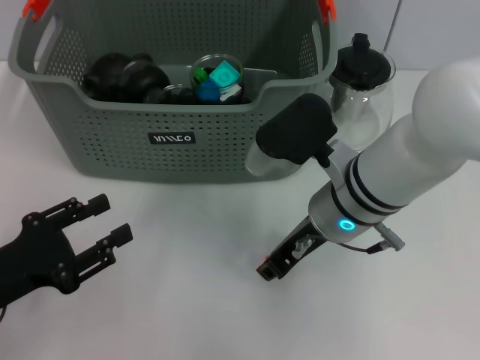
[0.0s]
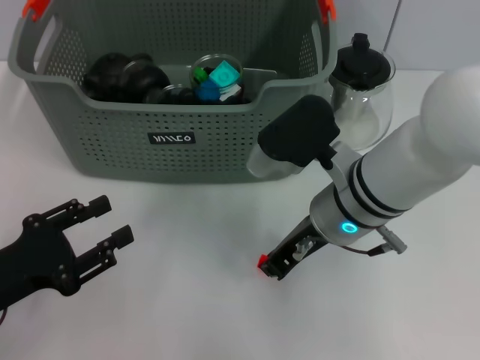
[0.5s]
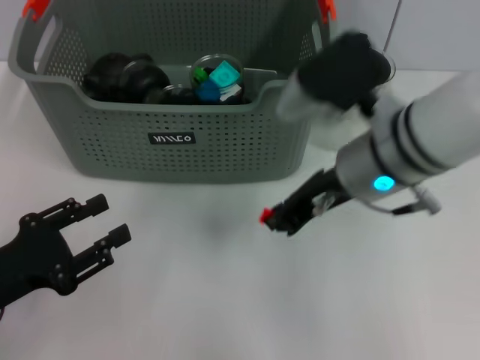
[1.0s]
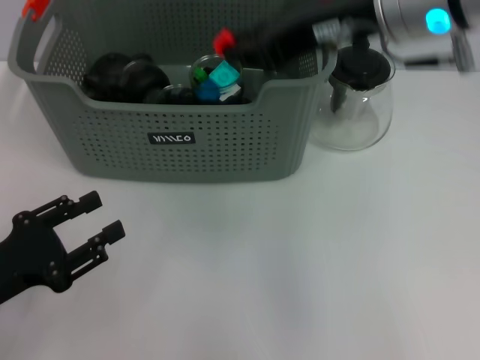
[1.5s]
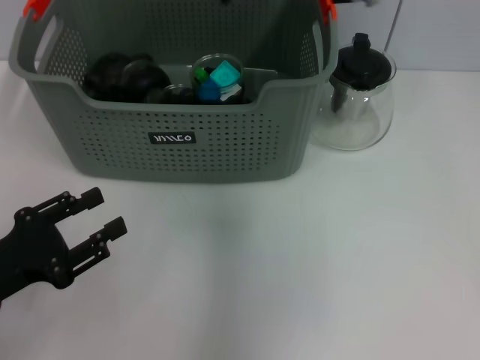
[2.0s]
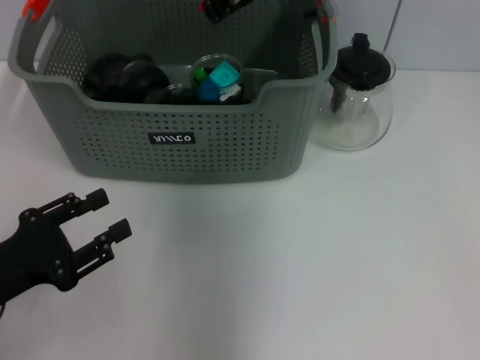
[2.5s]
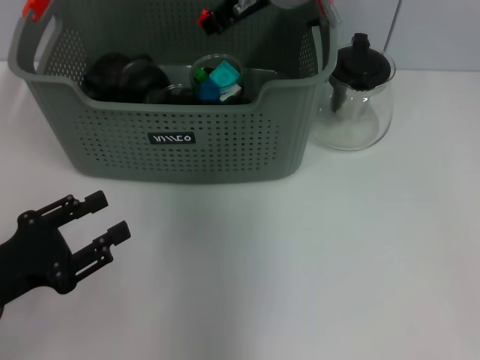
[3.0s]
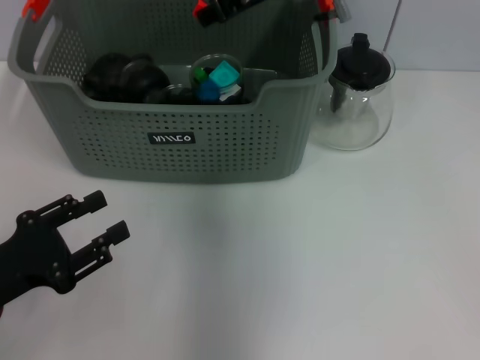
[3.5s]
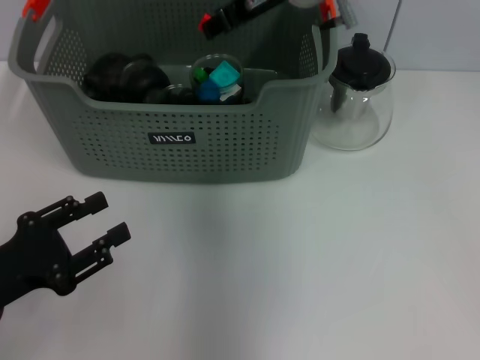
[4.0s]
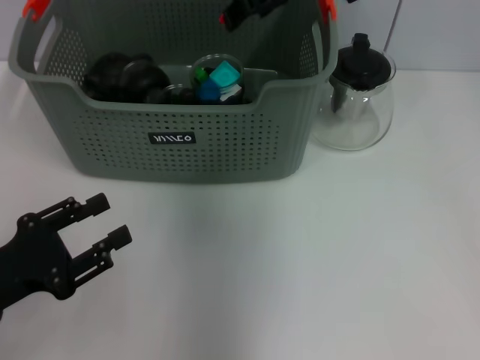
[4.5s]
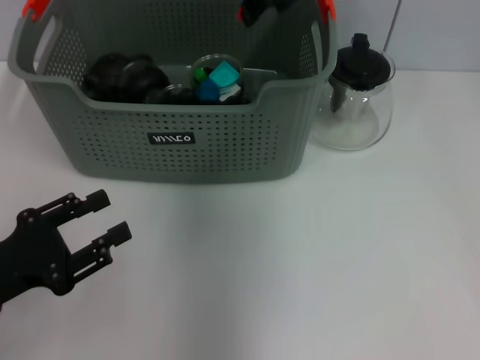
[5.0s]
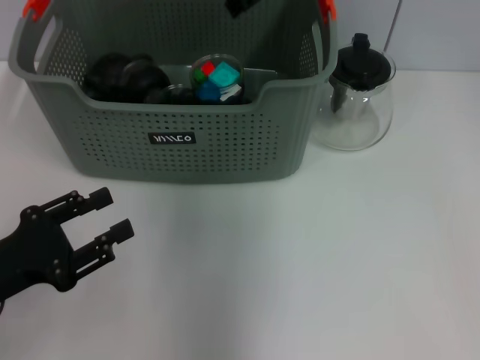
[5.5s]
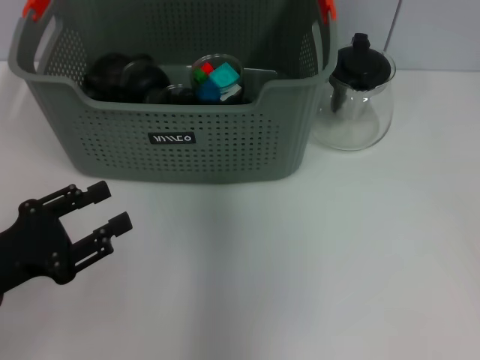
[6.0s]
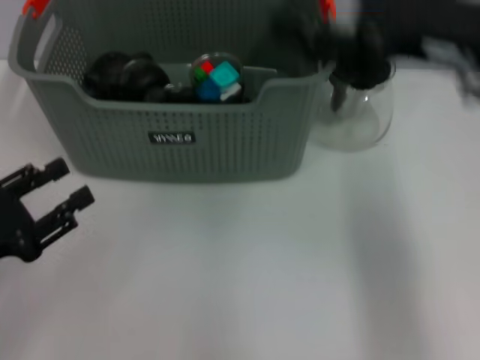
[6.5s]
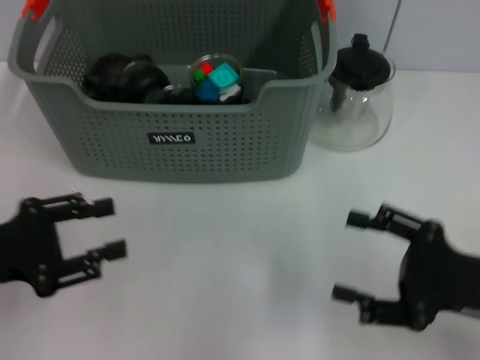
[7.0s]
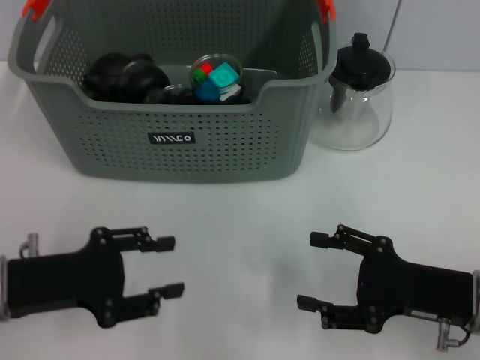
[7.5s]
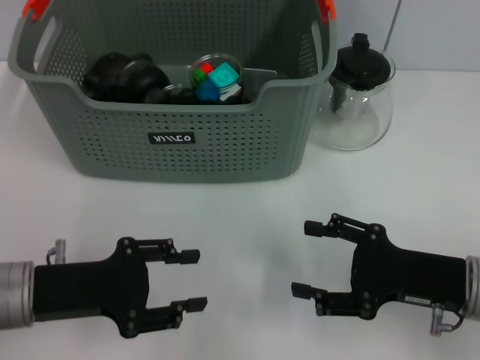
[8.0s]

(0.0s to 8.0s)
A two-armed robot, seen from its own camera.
Task of the whole recording: pick up the teacup on the table and place it into the storage bin, pick up the block on the table and place it into the storage bin.
Step, 1.0s - 6.0s: Place the orange block in the storage box with right gripper.
0.0s - 2.0s: The right gripper heads upward and forward, covering roughly 20 cm.
2.0s - 4.0s: The right gripper opens.
4.0s - 6.0s: The right gripper moves upward, roughly 5 cm, and closes.
6.0s - 8.0s: The left gripper changes place by approximately 5 cm; the right gripper is displaced downward, backward and to the right by approximately 35 cm, and opens.
